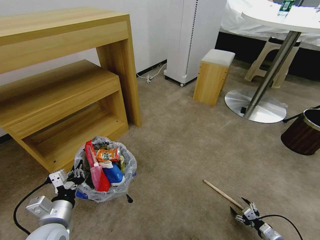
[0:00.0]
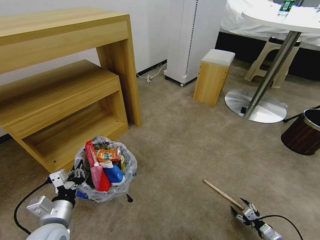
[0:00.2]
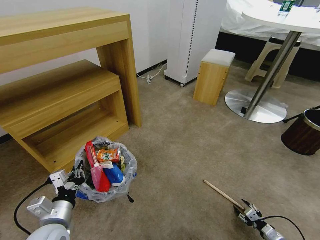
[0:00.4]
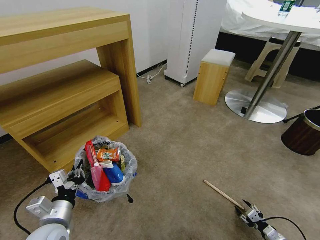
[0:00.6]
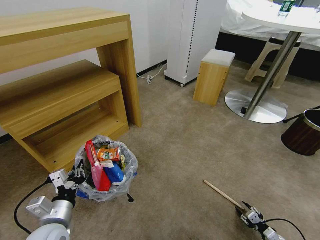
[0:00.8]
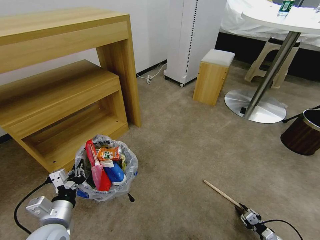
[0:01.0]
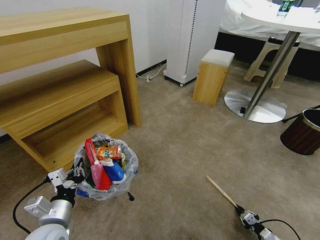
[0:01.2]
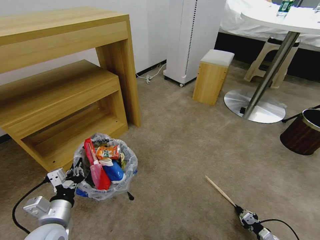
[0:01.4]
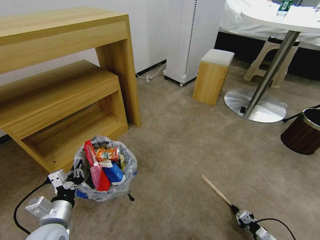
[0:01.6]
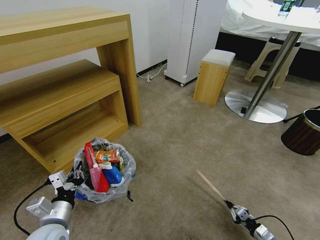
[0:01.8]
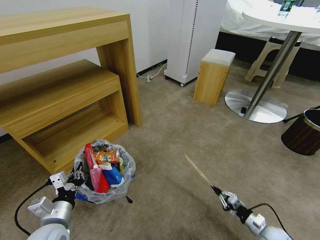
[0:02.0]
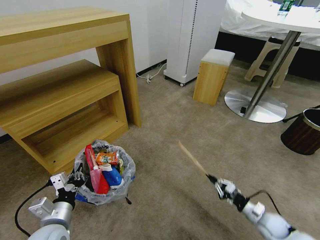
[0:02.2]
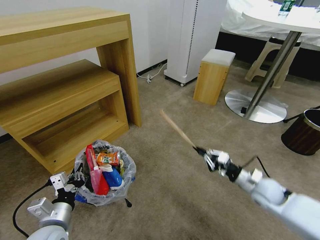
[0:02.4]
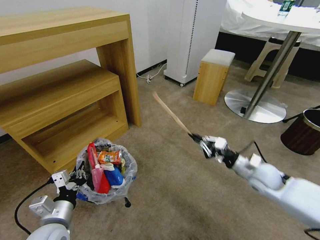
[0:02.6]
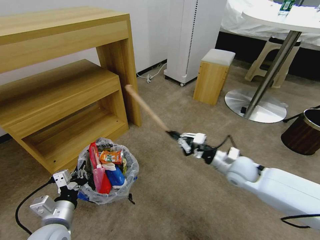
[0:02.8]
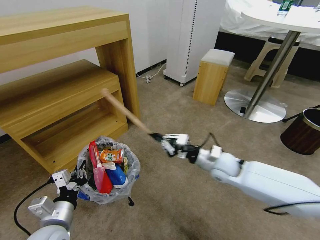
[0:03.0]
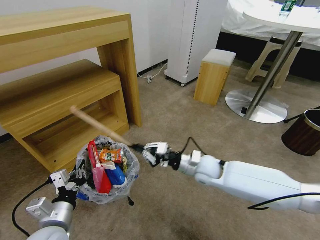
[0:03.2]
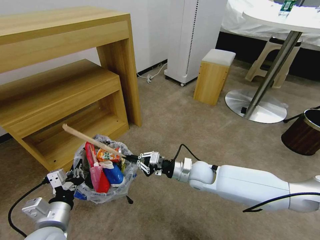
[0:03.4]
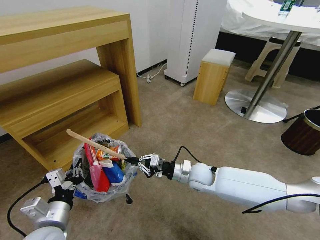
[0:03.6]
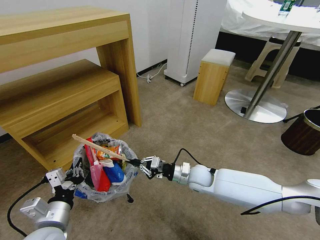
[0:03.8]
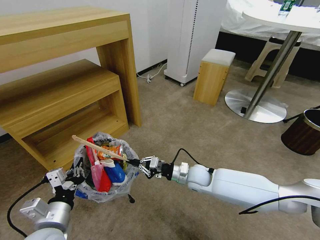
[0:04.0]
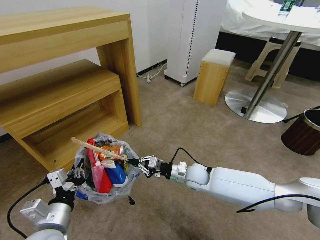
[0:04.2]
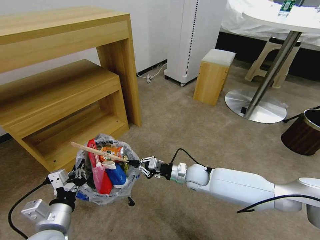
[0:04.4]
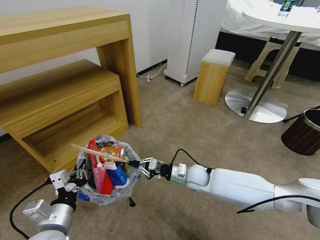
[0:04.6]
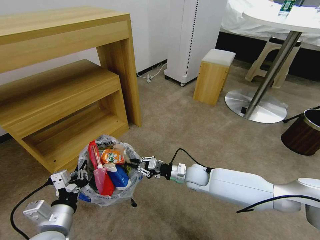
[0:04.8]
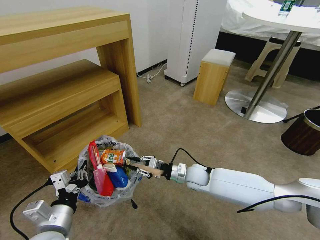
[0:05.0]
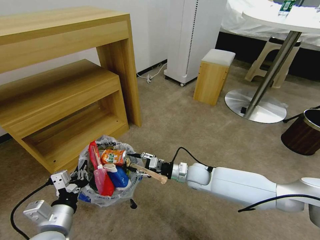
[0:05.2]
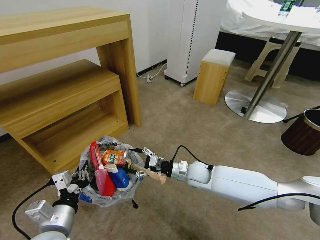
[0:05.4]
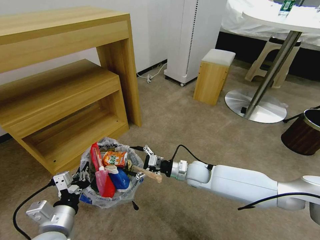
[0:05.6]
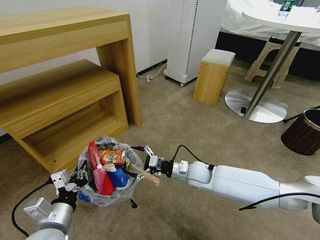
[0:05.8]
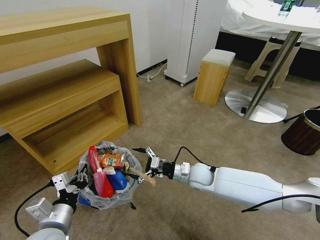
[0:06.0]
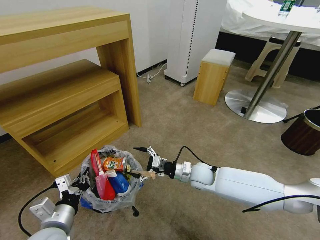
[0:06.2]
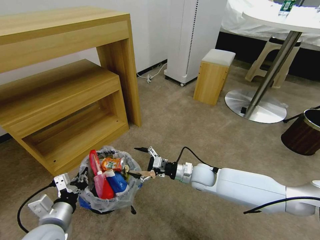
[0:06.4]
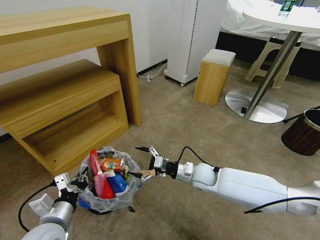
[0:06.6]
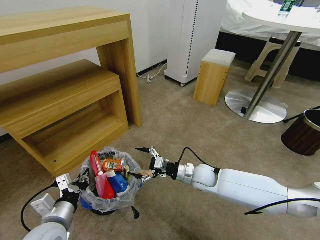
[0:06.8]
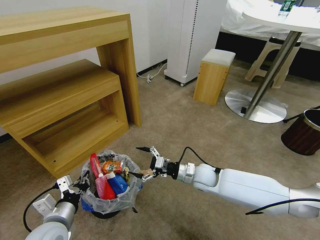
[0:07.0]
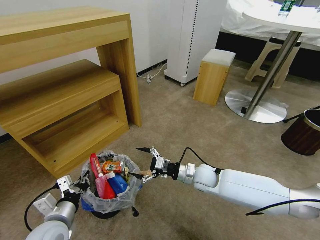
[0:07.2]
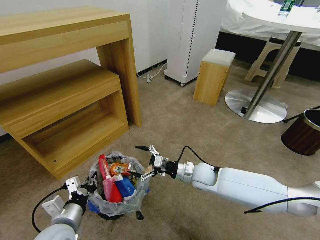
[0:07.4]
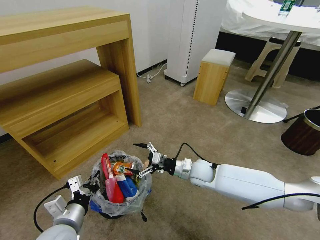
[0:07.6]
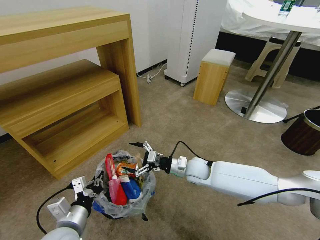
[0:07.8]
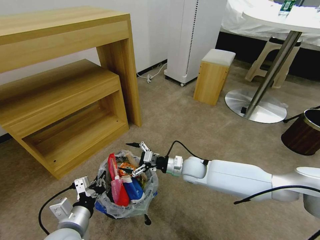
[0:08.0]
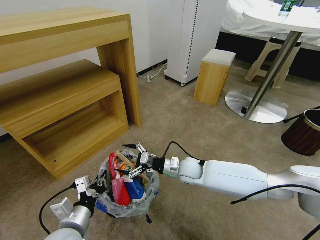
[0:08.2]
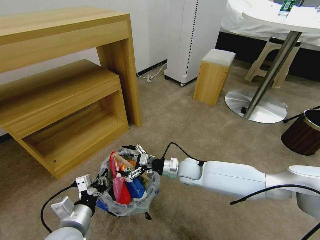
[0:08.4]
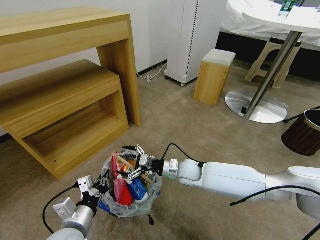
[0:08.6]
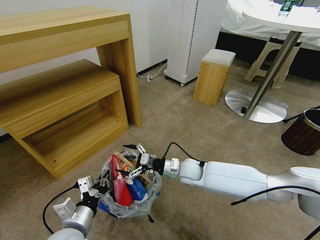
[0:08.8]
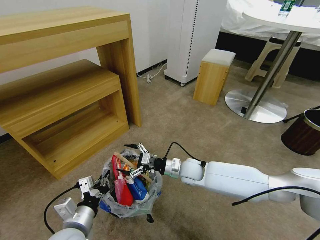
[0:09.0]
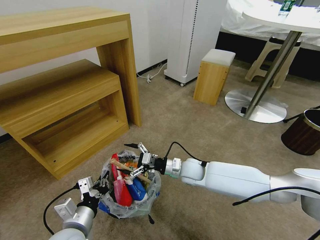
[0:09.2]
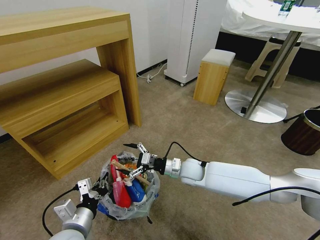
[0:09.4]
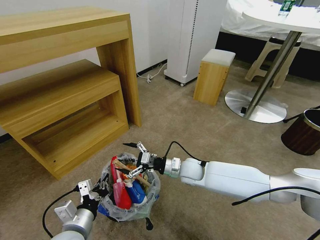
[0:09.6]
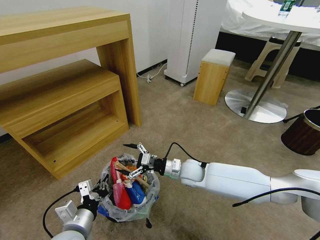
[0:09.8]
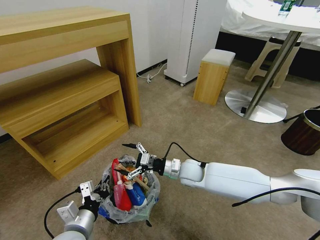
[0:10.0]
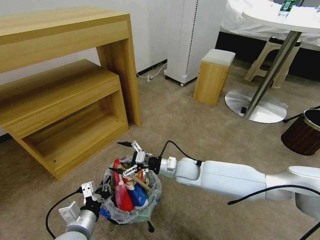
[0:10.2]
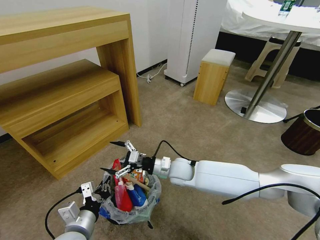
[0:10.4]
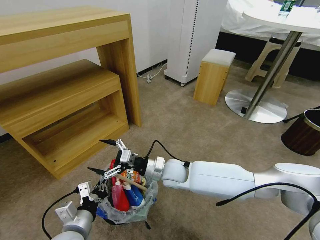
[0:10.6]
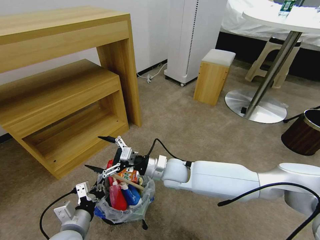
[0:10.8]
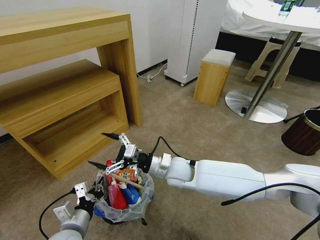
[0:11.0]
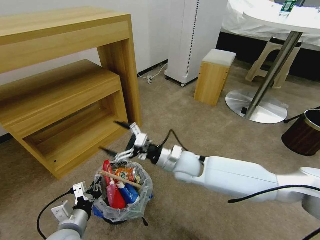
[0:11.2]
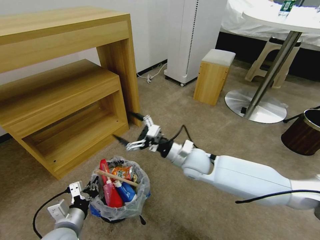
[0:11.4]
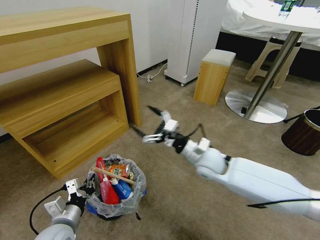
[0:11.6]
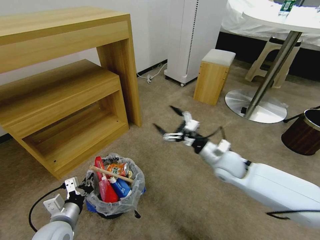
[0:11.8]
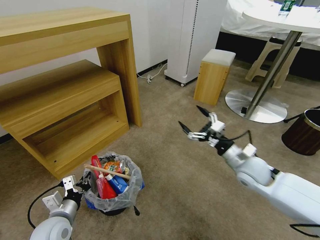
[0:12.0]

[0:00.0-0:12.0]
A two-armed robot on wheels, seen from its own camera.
Task of the whole recording: Pick up the trash bin and place the garbage on the floor into it.
0:00.0 to 0:01.6: The right gripper closes its fingers.
0:01.6 to 0:03.0: The right gripper shifts roughly 50 cm upward, to the left and forward.
0:03.0 to 0:04.4: The right gripper heads downward and to the left, covering about 10 cm.
0:04.4 to 0:06.0: The right gripper opens up.
0:06.0 to 0:09.0: The grippers move only a little.
0:09.0 to 0:10.4: The right gripper moves to the left, approximately 5 cm.
0:10.4 to 0:12.0: The left gripper travels to the left by about 10 cm, while the right gripper moves to the right, roughly 25 cm.

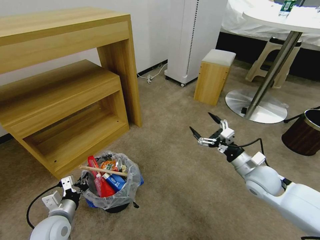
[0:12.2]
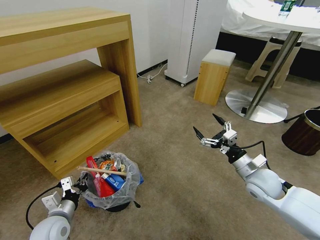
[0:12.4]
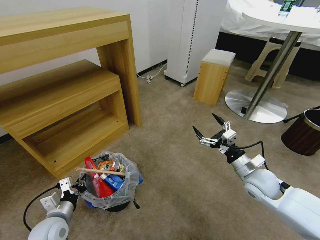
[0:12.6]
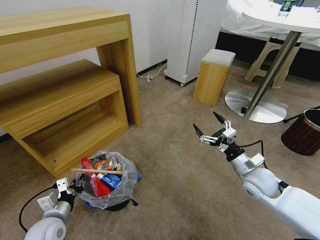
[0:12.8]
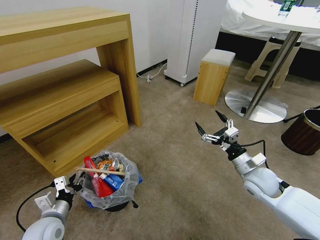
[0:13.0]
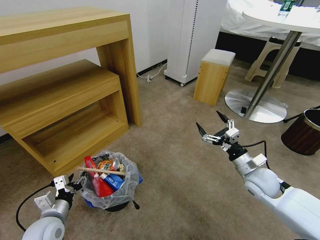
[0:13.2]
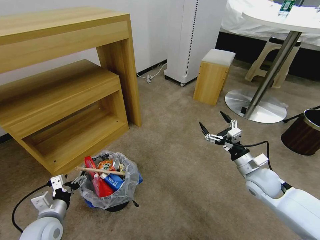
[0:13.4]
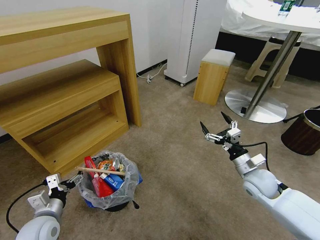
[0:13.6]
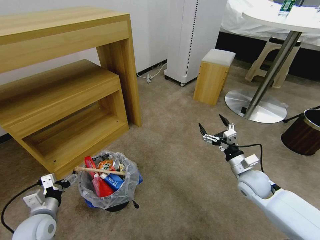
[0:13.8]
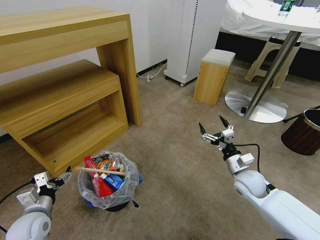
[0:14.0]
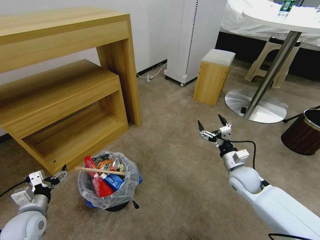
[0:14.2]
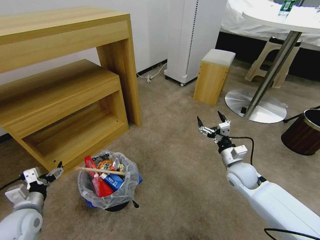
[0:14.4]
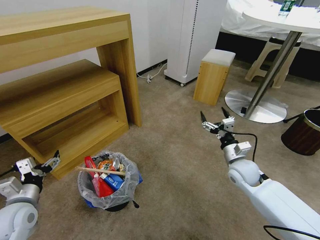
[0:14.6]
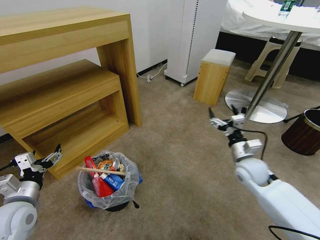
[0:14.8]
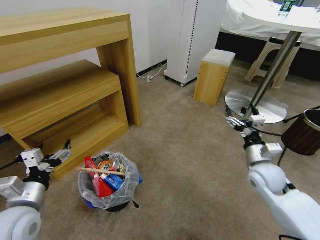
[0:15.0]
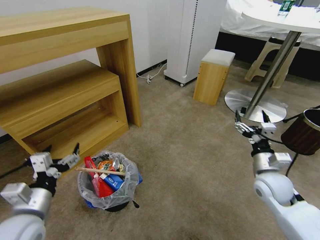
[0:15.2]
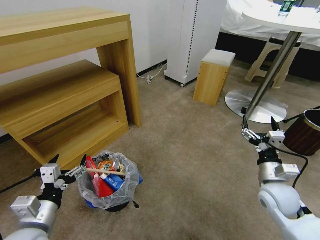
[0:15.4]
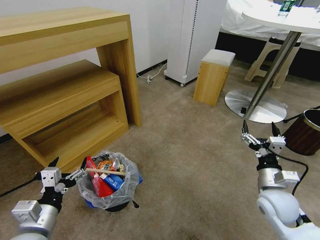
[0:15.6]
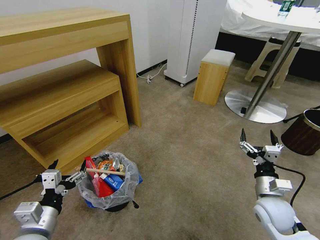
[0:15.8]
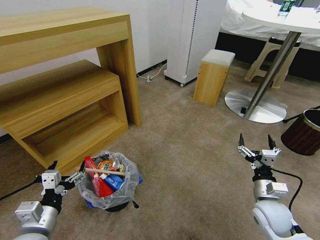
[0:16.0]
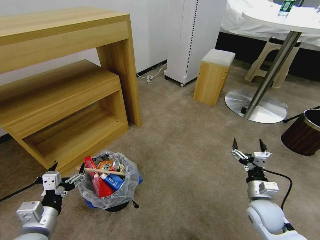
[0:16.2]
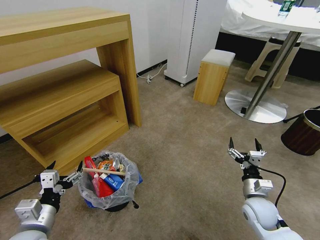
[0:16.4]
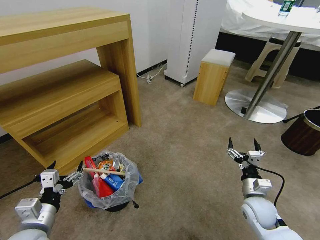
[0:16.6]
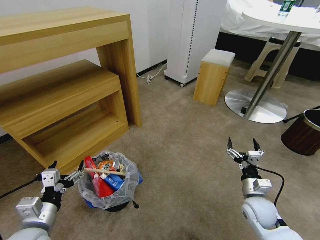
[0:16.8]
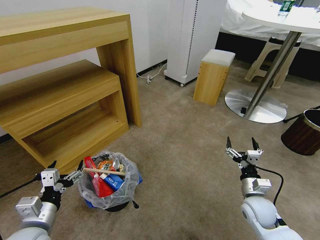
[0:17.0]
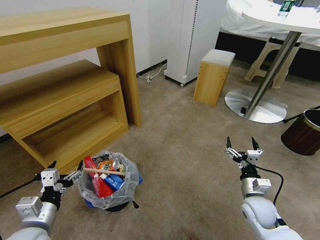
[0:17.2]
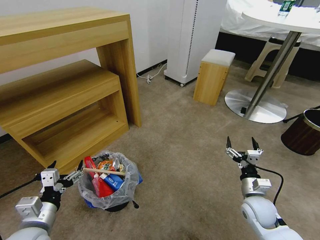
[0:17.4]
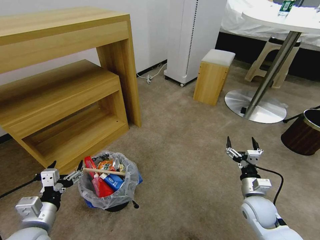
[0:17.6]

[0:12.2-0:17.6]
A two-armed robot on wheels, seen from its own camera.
Task of the whole recording: Pick up the trash bin and place the garbage on the floor into it.
0:12.2 to 0:13.6: The left gripper opens its fingers.
0:13.6 to 0:15.0: The left gripper heads upward, covering approximately 10 cm.
0:15.0 to 0:16.2: The left gripper changes place by about 5 cm. The right gripper shifts some 10 cm downward and backward.
0:16.2 to 0:17.6: There are only small adjustments of the grippers.
